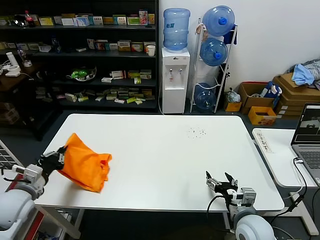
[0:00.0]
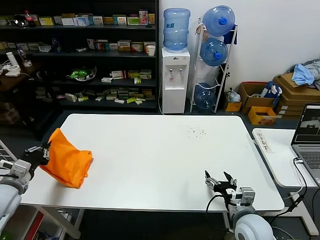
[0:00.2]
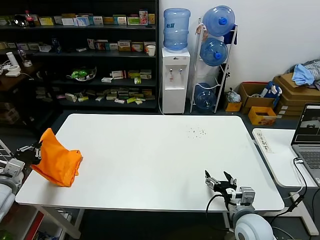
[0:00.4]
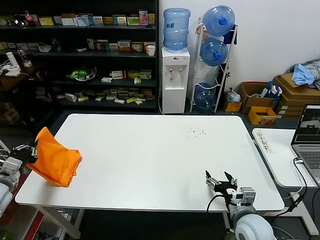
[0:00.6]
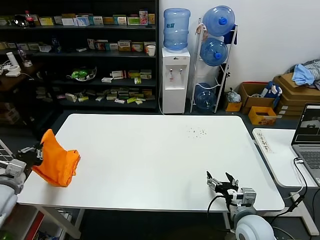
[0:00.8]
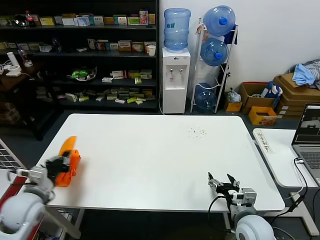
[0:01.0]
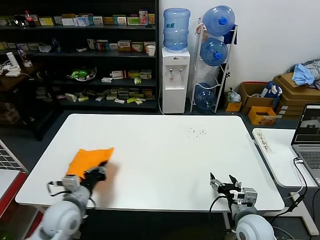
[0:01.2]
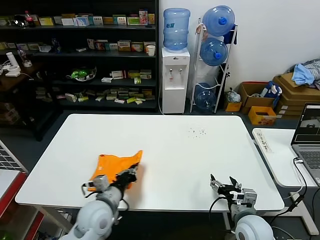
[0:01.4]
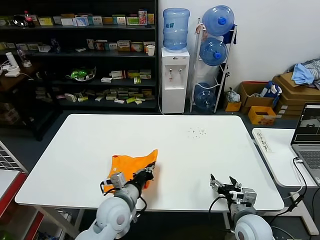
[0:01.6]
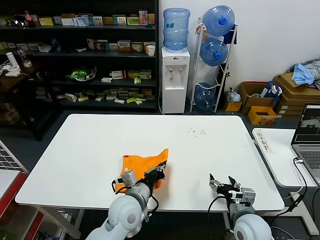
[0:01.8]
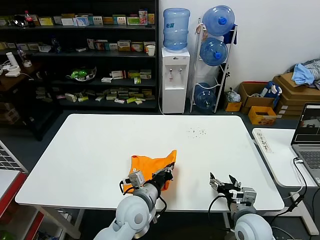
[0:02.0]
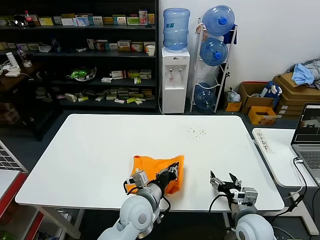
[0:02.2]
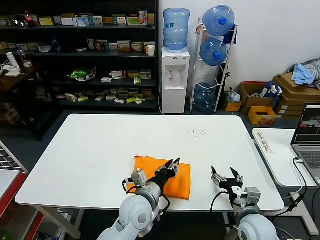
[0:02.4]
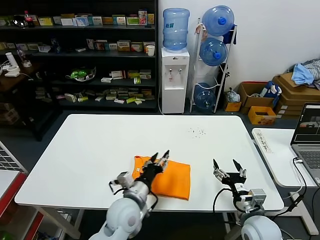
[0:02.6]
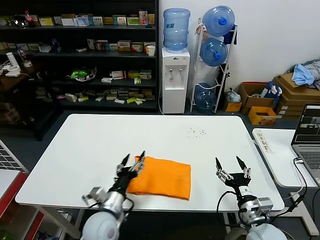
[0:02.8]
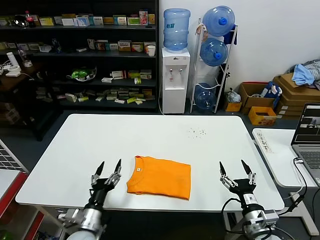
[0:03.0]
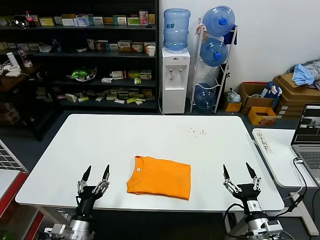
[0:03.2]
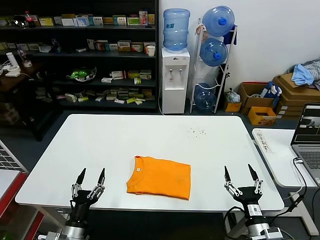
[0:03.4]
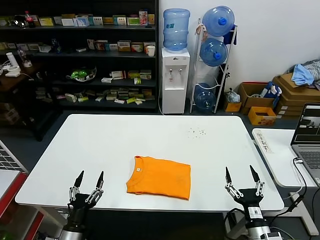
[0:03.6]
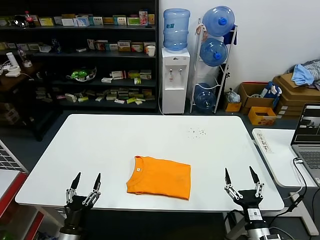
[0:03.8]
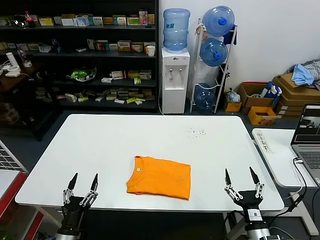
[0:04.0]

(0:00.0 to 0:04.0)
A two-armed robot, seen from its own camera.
Task of the whole recording: fold and organize the clothes.
Step, 0:00.0 - 0:02.4: Flip the folded clothes over with left gripper.
0:00.0 - 0:01.4: The left gripper shifts roughly 20 cm to the right.
0:01.4 - 0:02.6: The left gripper shifts roughly 15 cm to the right, and opens its fingers.
0:02.6 - 0:04.0: The right gripper travels backward by some 10 cm, while the left gripper moves to the left, backward and downward, some 30 cm, and opens.
